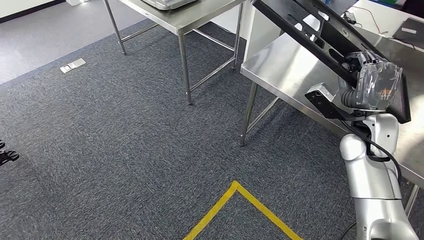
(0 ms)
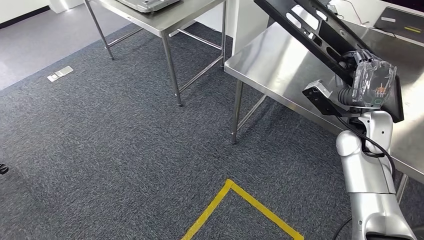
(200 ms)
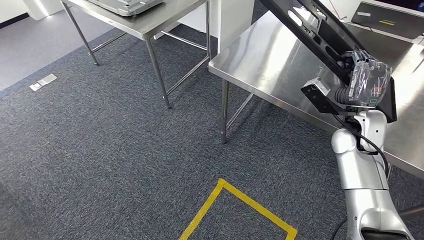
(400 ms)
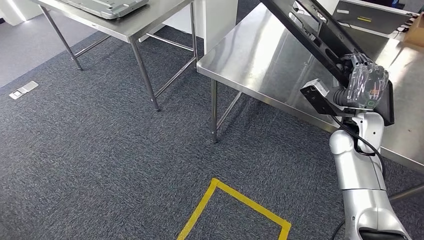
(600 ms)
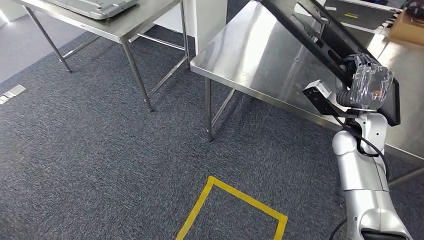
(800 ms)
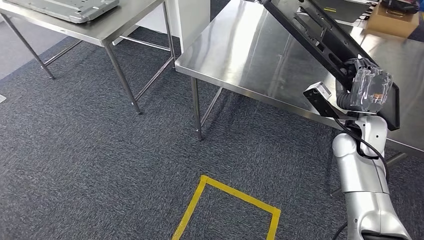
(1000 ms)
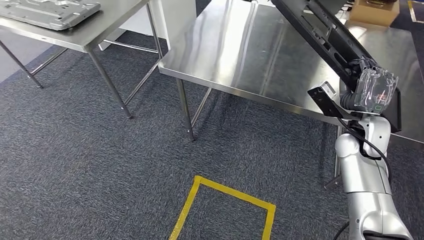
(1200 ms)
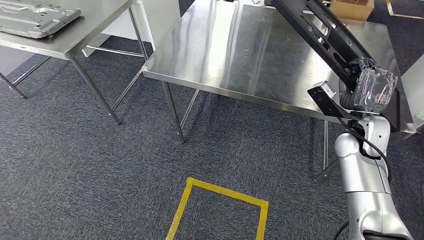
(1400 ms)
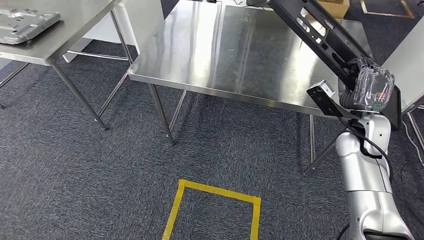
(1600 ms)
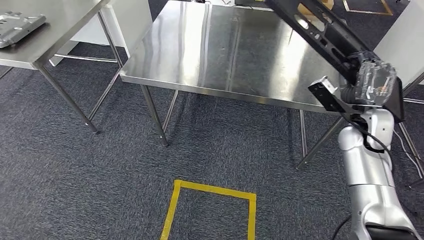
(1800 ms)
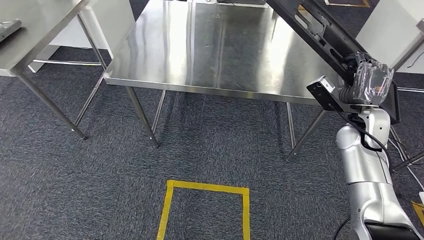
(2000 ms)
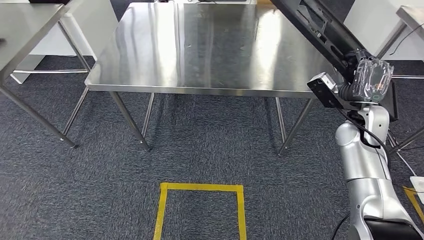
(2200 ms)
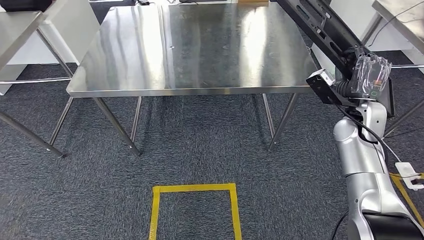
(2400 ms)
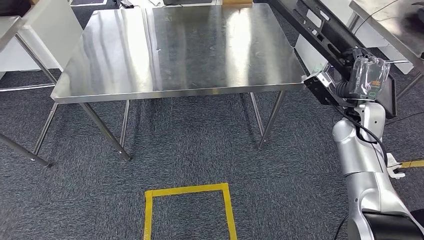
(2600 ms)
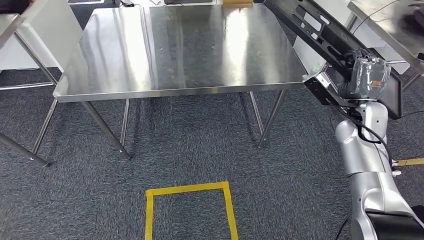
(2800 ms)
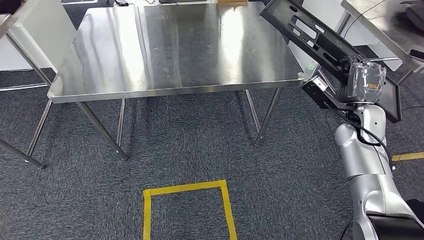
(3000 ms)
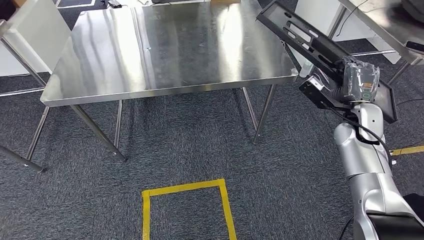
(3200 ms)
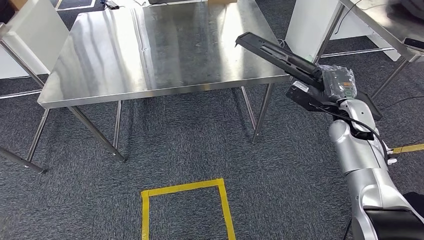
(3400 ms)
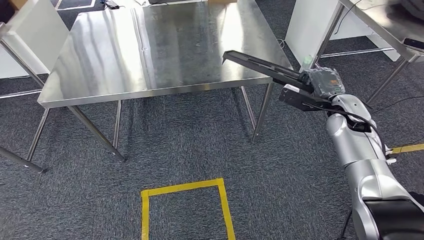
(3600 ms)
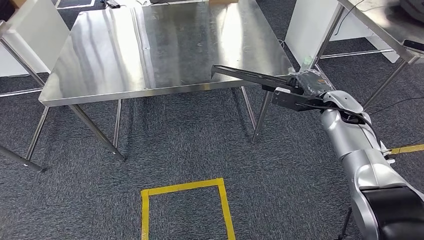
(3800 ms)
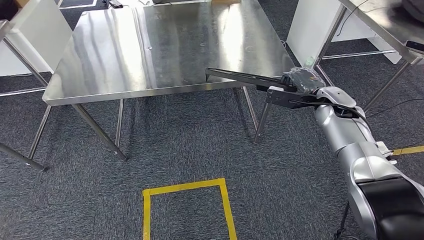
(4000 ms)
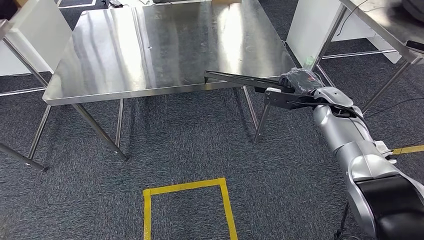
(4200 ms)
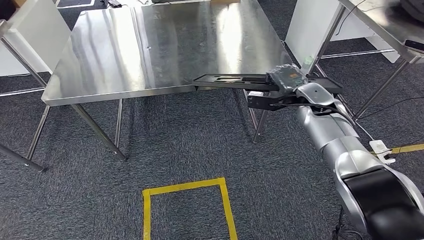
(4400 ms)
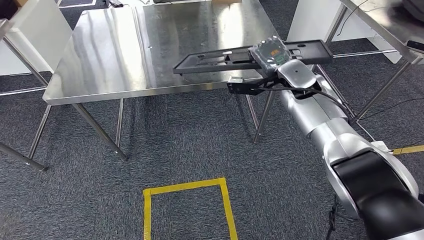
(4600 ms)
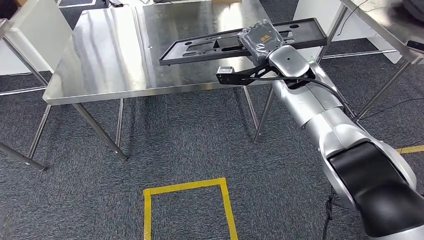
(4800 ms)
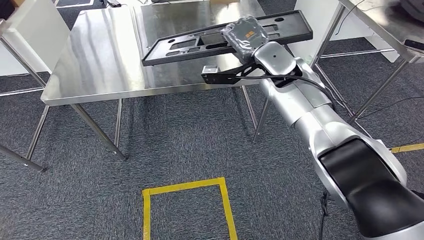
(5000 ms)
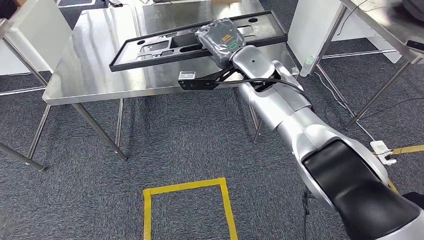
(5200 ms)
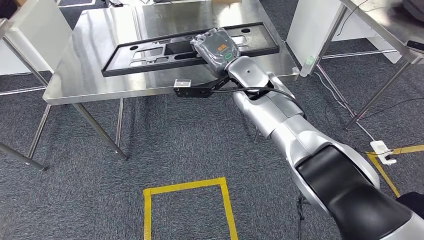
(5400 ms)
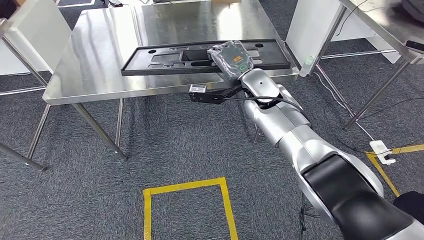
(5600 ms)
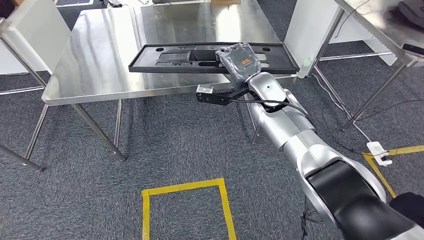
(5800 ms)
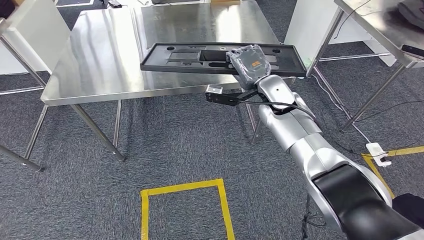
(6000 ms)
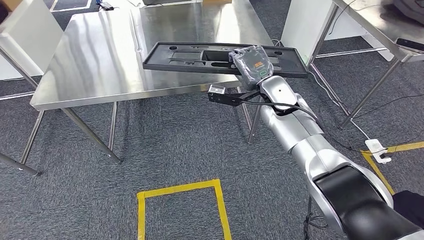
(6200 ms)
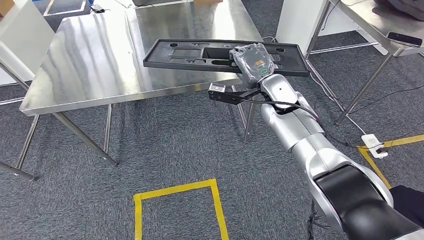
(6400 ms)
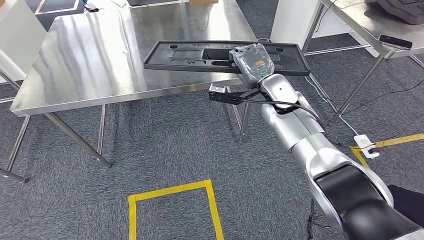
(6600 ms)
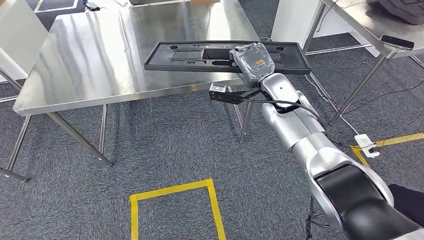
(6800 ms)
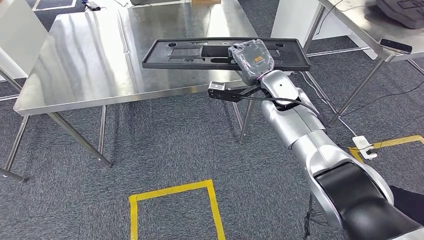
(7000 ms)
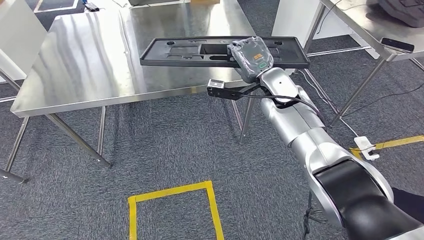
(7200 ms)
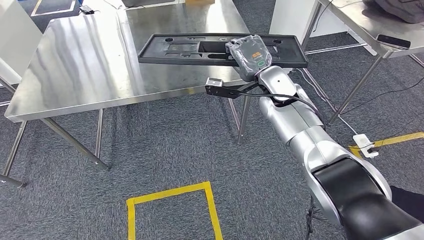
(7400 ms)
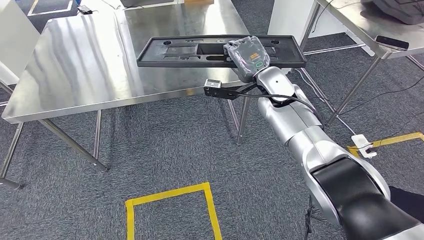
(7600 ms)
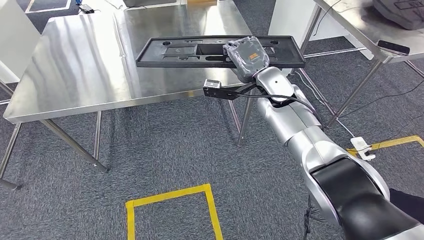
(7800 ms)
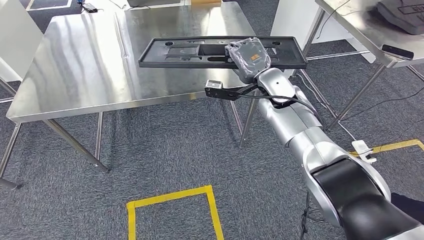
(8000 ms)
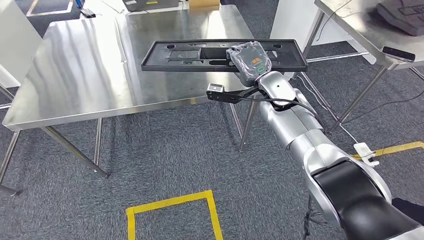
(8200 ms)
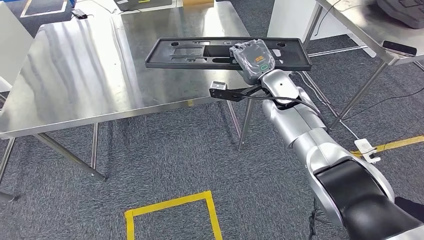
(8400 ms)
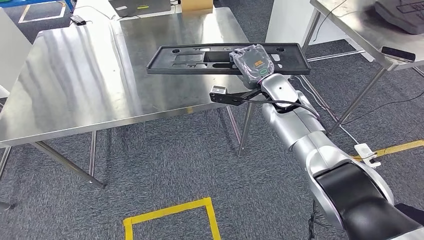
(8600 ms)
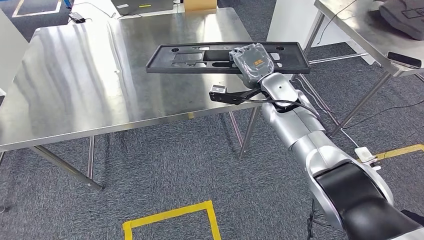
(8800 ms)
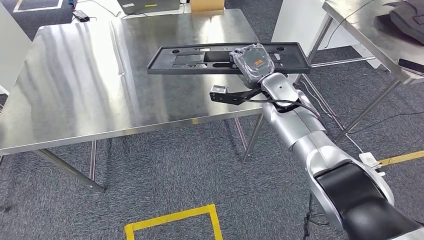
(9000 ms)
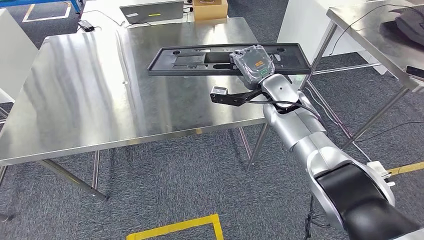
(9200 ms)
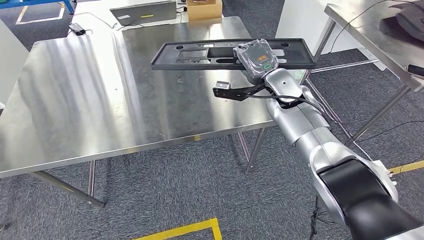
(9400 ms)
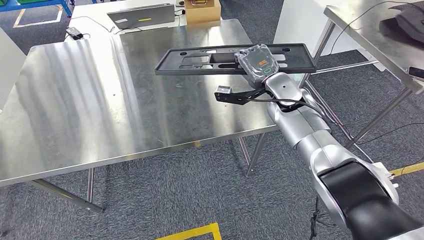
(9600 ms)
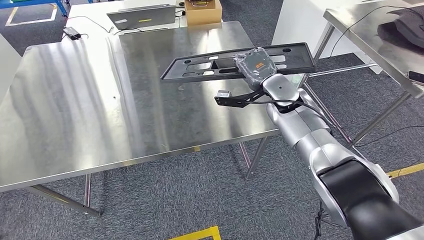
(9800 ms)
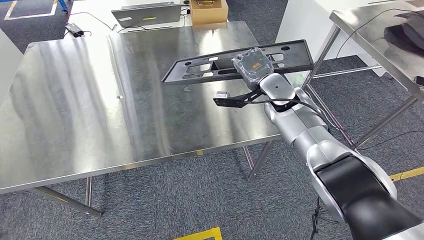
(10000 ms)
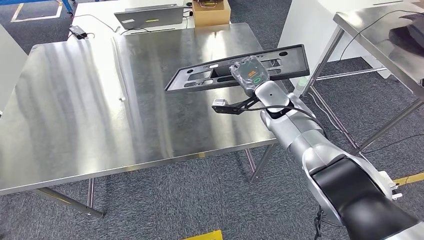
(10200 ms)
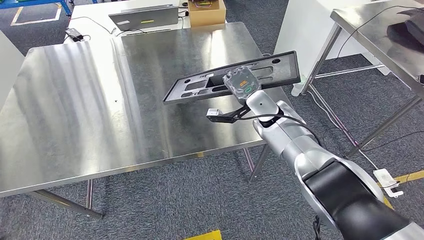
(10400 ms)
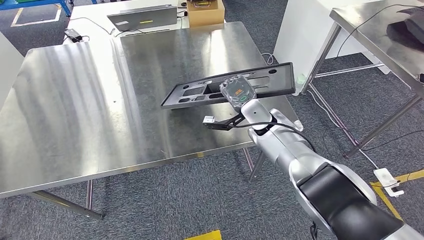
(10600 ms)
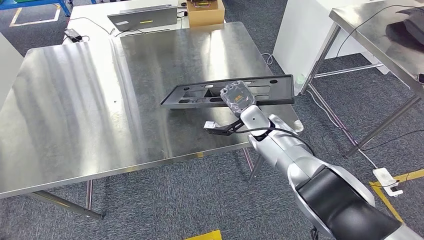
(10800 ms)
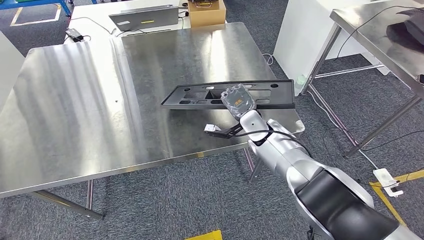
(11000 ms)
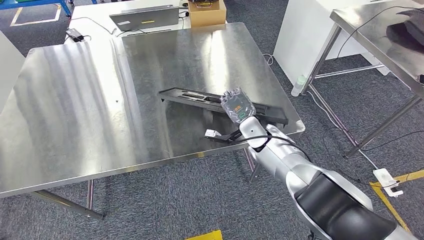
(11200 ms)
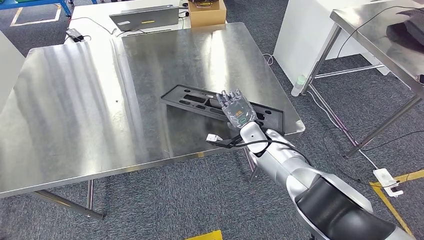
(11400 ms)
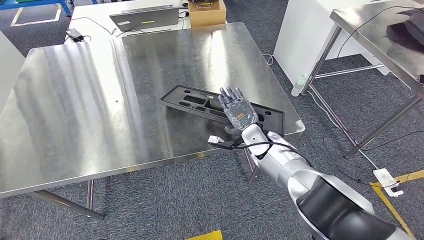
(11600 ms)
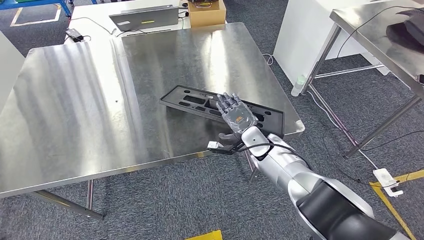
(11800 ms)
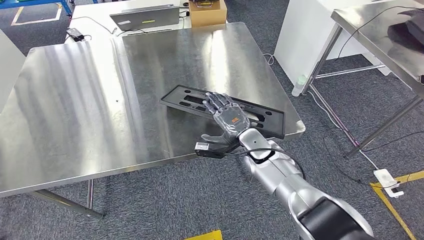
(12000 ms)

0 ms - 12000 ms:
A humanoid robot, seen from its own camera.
10400 ms - 12000 ms: The right hand moves downward and backward, some 10 cm.

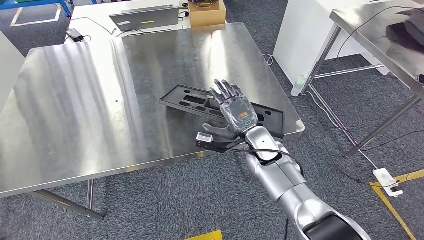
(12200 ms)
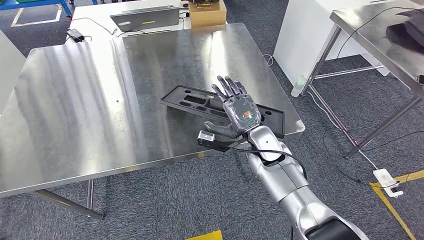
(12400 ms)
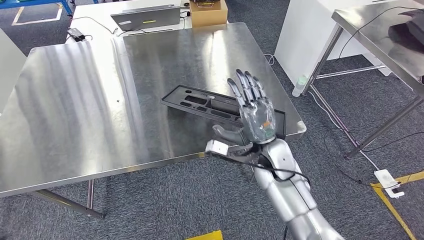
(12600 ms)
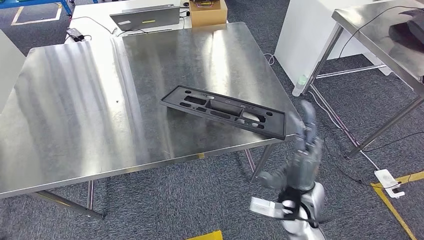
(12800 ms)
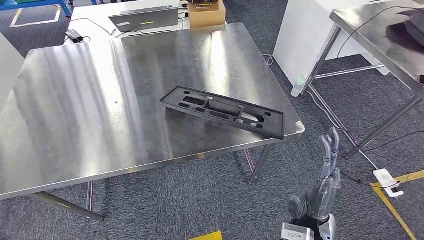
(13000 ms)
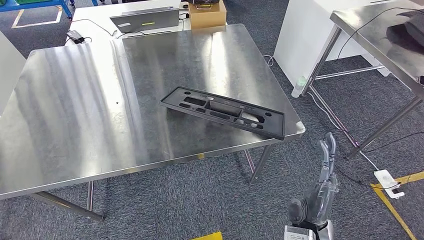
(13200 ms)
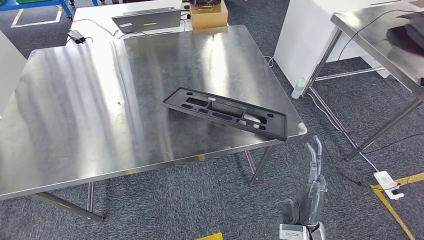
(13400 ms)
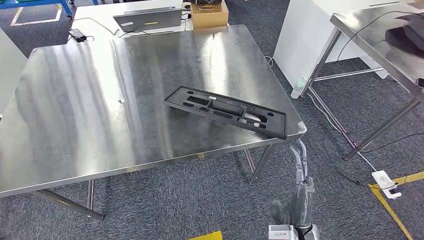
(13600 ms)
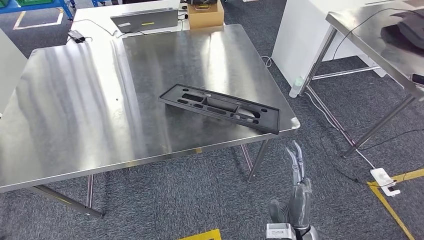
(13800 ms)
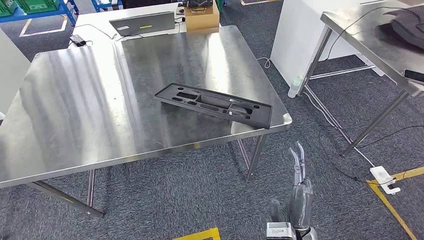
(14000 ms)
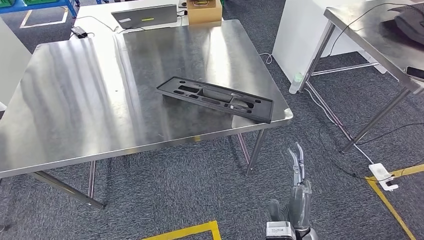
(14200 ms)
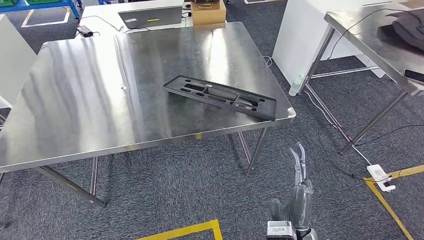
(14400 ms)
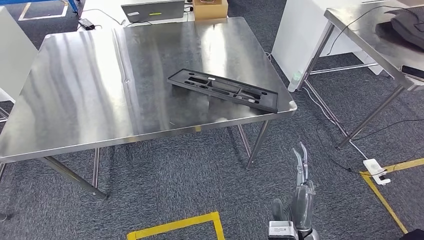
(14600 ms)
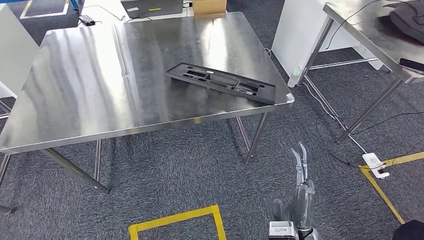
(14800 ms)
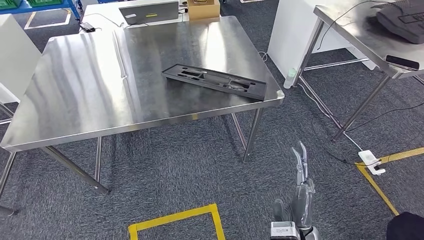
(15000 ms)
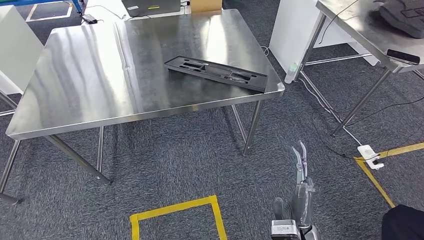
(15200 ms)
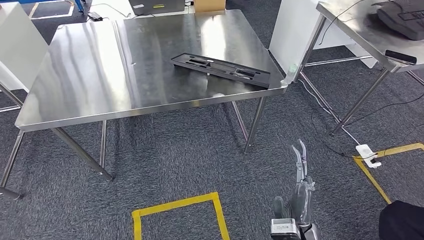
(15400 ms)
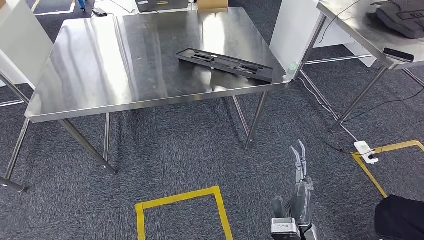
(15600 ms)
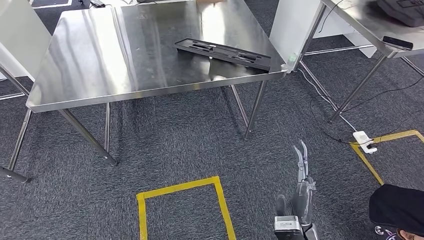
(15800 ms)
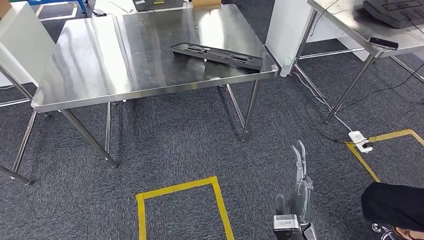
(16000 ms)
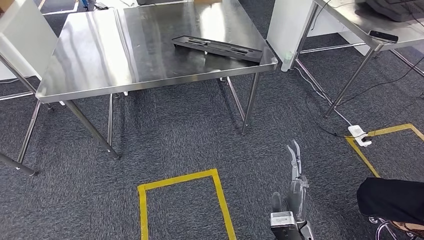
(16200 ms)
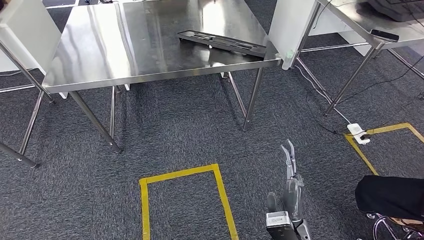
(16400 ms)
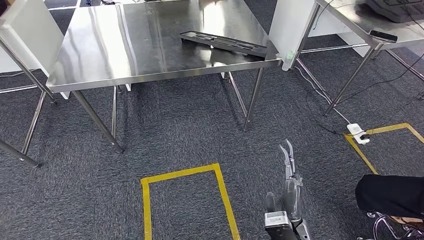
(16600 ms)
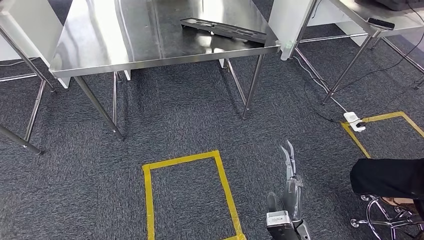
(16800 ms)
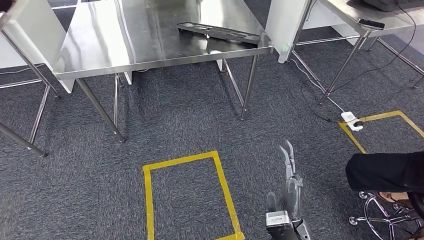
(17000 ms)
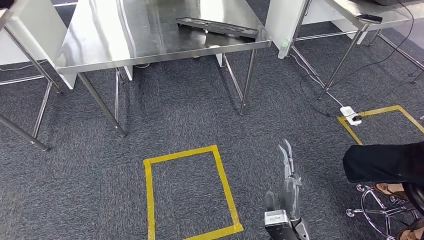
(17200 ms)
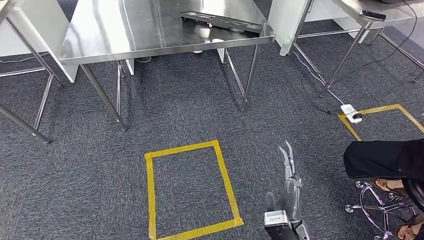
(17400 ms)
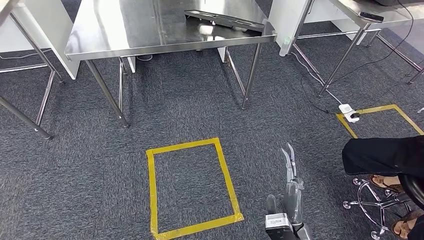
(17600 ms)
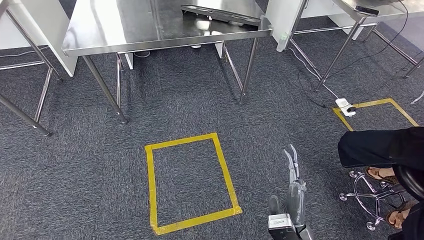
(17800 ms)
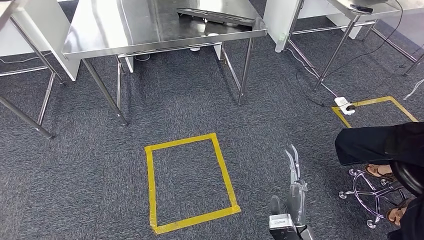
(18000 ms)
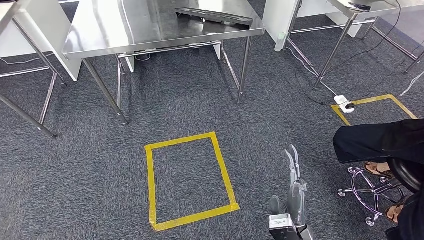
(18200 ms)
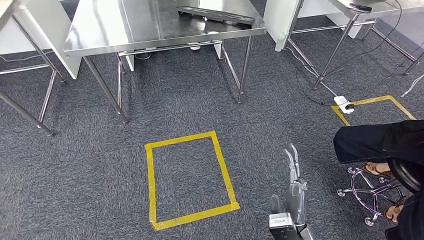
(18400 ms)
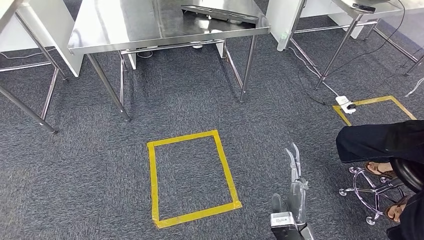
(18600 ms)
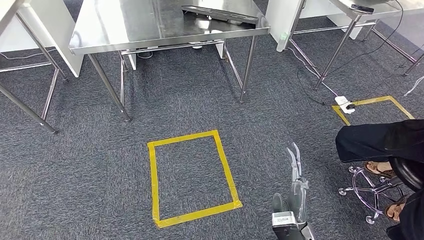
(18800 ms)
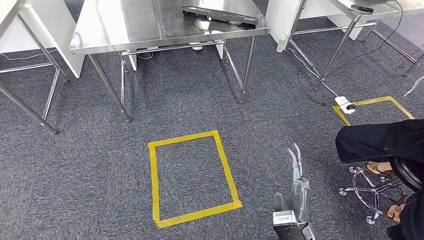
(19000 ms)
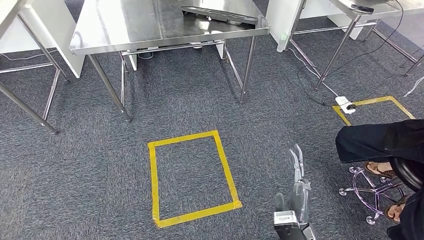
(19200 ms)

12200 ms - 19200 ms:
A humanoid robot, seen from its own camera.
Step, 12200 ms - 16800 ms: Insert the large material into the corresponding slot on the workbench.
12200 ms - 13600 ms: The left hand is displaced backward by about 5 cm. Meanwhile the right hand is displaced backward by about 25 cm.
